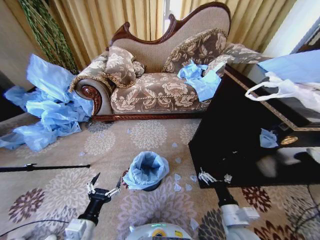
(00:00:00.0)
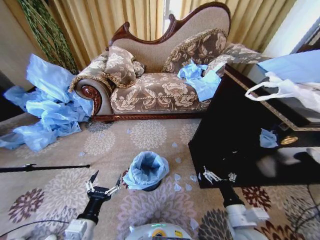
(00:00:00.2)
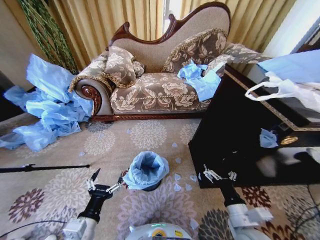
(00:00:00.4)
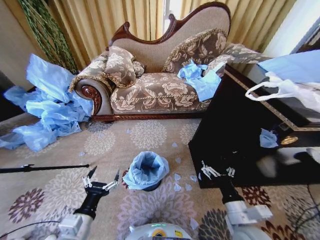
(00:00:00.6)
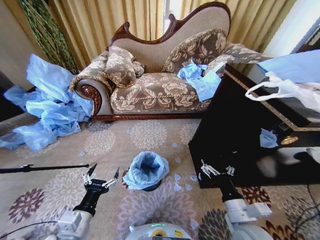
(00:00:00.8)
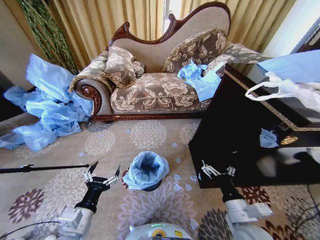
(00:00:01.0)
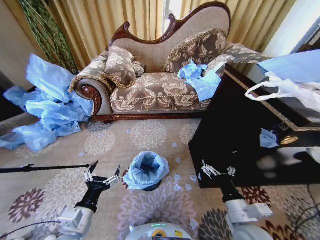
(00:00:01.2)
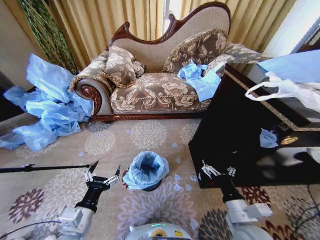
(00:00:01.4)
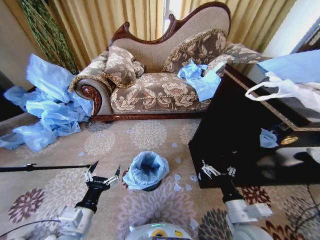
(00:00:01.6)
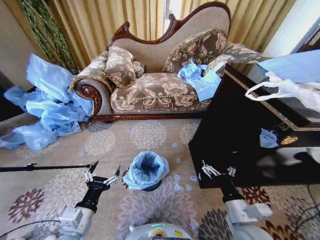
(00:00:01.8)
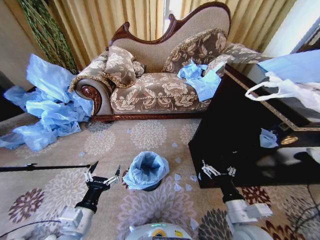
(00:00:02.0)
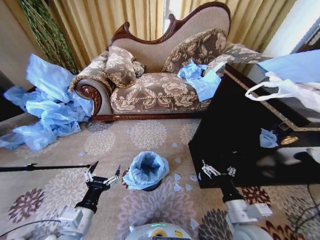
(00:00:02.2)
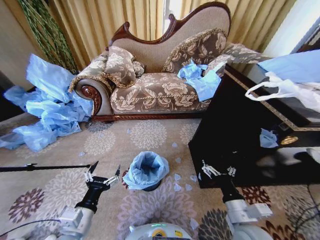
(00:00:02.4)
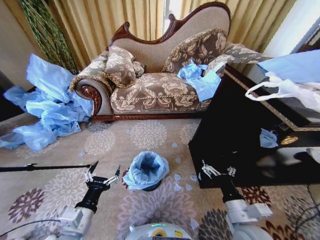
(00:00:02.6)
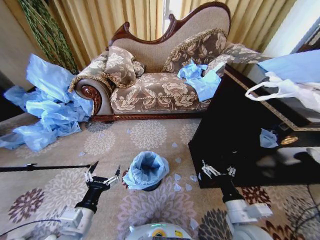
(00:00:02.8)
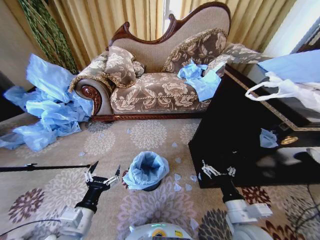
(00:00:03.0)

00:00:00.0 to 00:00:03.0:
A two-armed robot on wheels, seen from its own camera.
Task of the whole recording: Place a garbage bag over the trash bin.
00:00:00.0 to 00:00:01.6: The right gripper moves upward, about 5 cm.
00:00:01.6 to 00:00:03.0: Both grippers stay about where they are.
